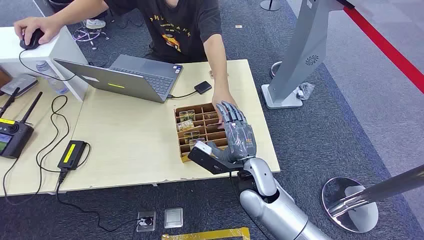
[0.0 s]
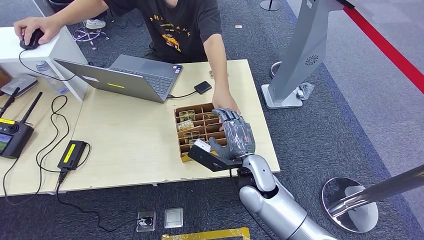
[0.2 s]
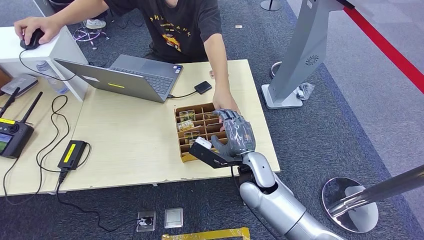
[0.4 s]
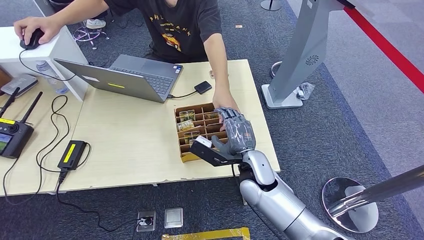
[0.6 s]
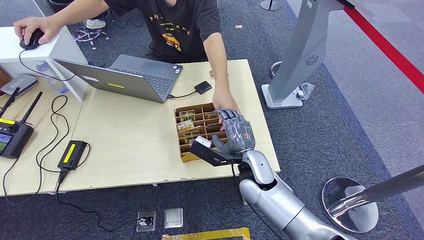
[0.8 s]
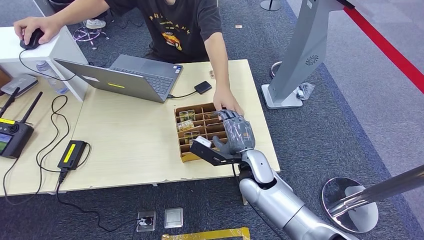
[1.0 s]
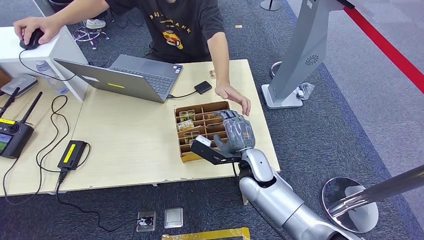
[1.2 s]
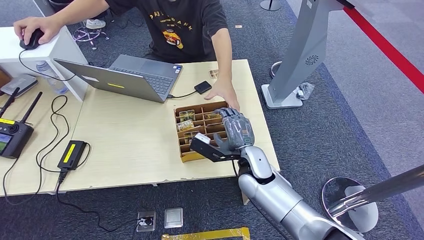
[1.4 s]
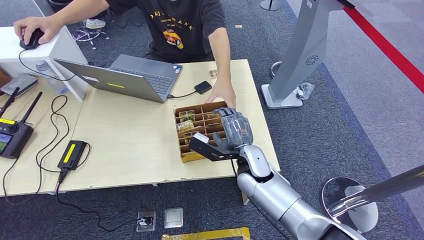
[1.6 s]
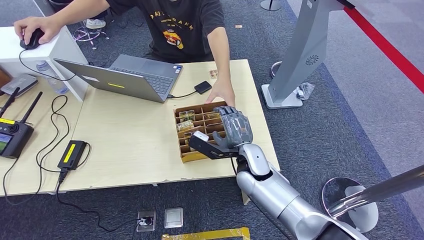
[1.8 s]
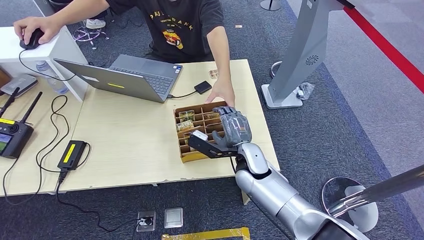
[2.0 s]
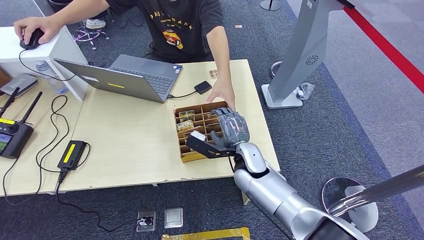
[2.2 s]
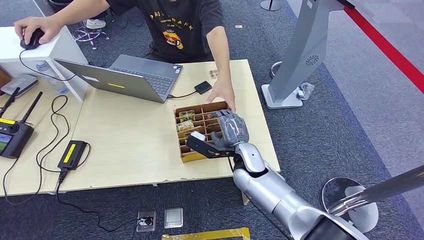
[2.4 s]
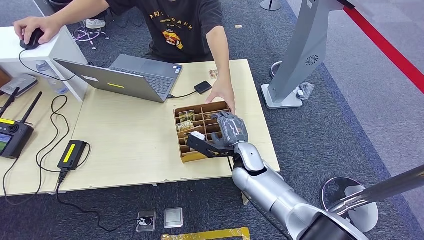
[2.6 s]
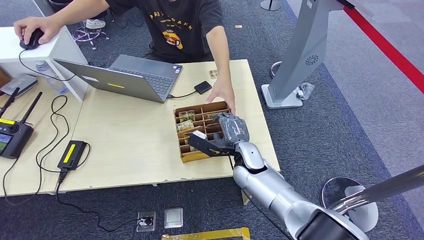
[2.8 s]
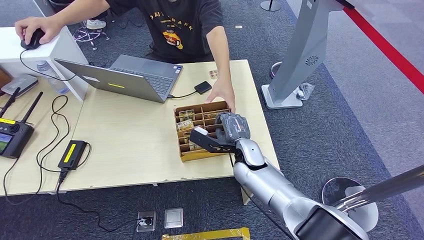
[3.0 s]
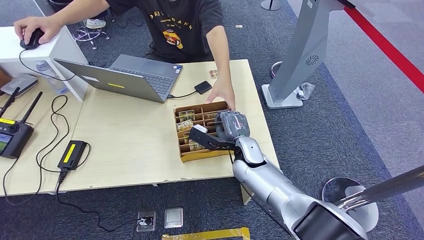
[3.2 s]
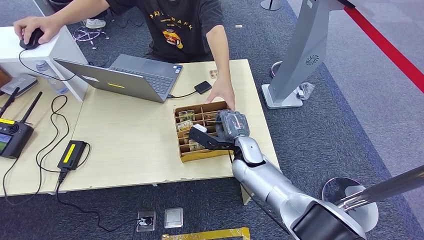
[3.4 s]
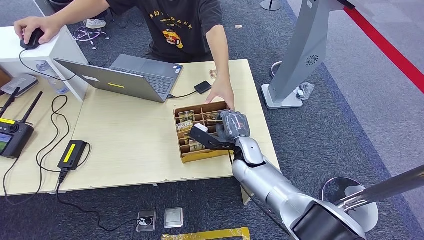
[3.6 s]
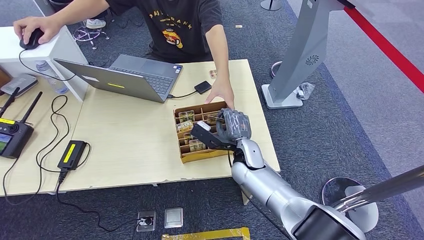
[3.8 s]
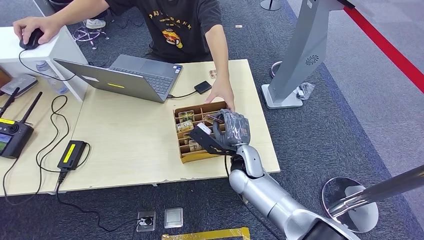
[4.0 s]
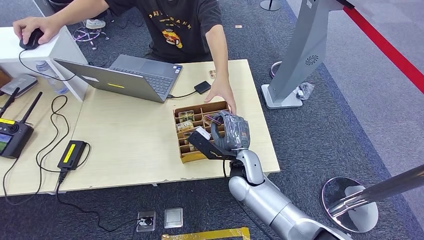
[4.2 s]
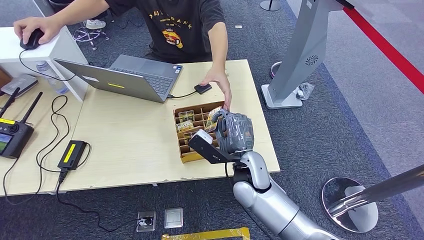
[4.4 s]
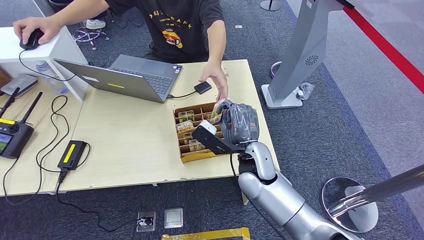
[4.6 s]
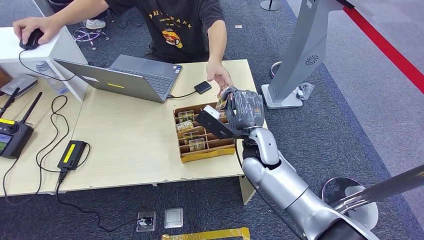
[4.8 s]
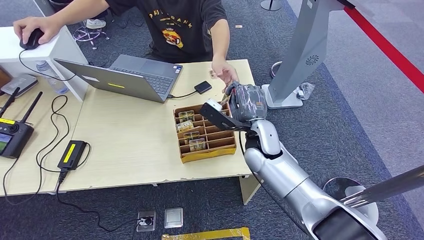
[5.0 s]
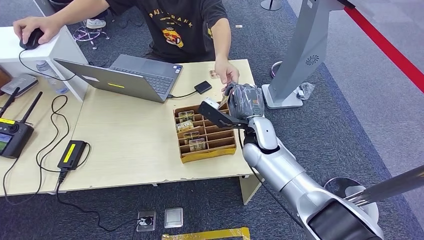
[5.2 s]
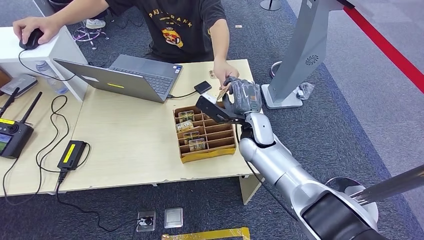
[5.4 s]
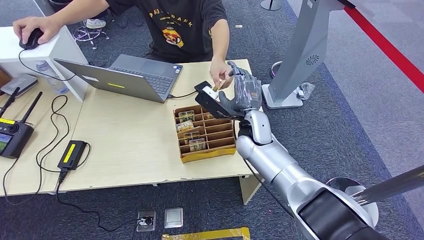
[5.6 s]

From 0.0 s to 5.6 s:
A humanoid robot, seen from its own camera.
Step, from 0.0 s to 4.8 s: Pick up the room card from the card holder.
Step, from 5.0 s to 5.6 s: Hand the room card to the target.
From 1.4 s to 2.8 s: The hands move only a little.
From 4.2 s to 5.6 s: The right hand moves forward and upward, roughly 10 cm.
